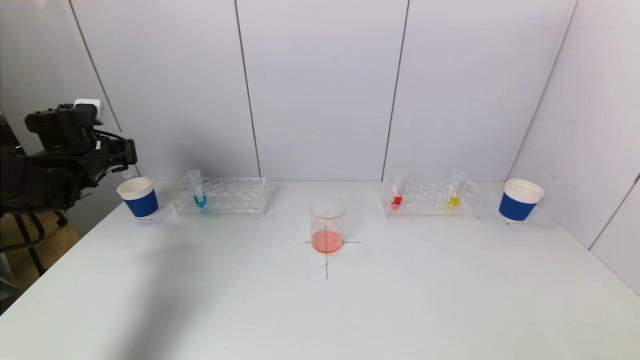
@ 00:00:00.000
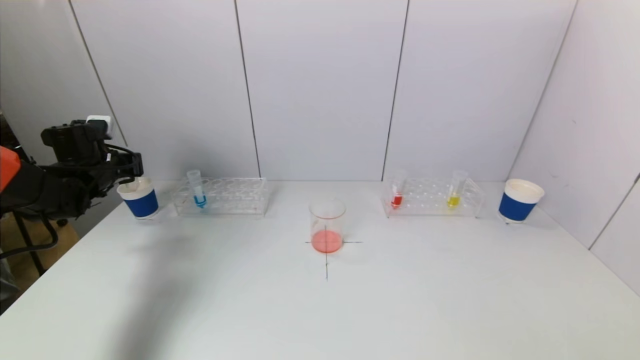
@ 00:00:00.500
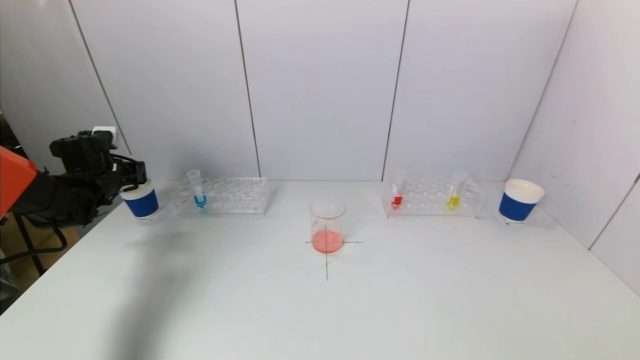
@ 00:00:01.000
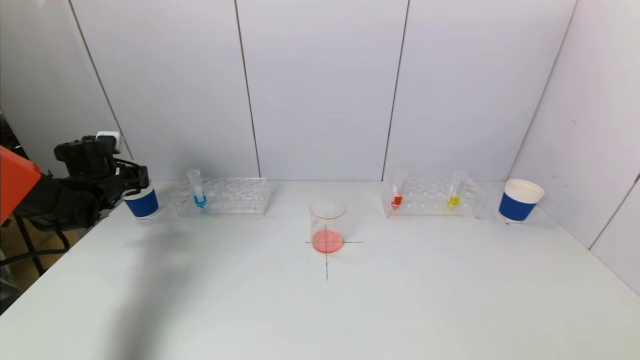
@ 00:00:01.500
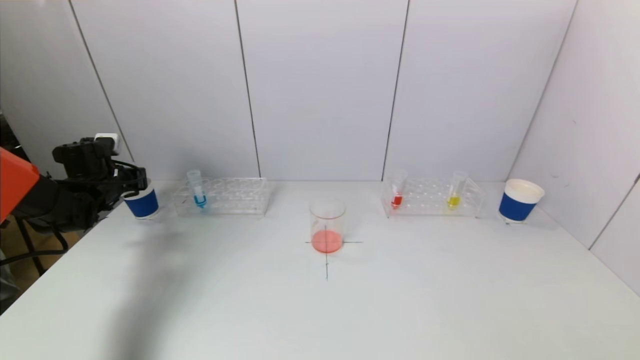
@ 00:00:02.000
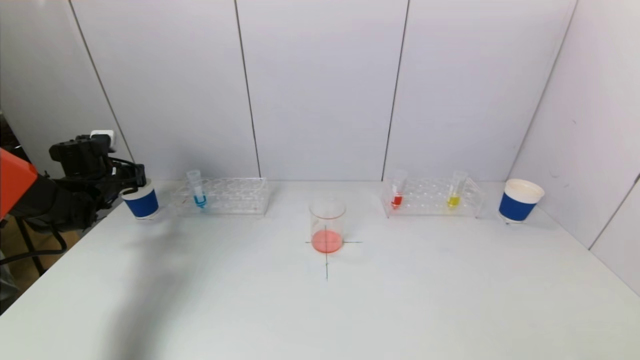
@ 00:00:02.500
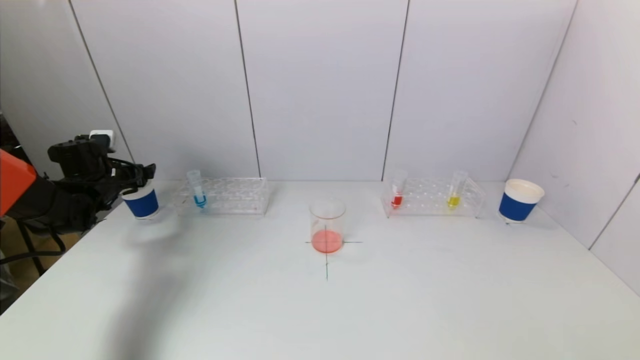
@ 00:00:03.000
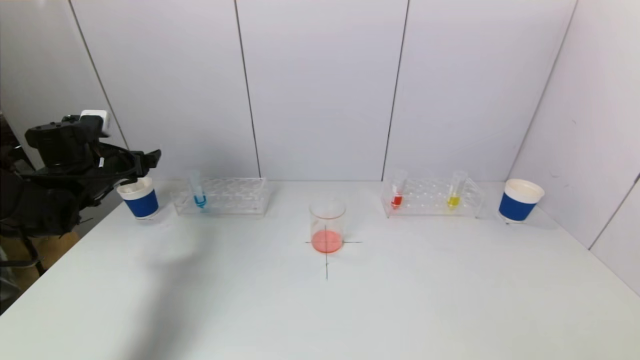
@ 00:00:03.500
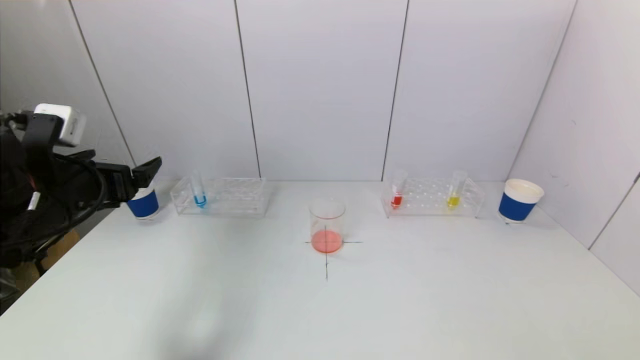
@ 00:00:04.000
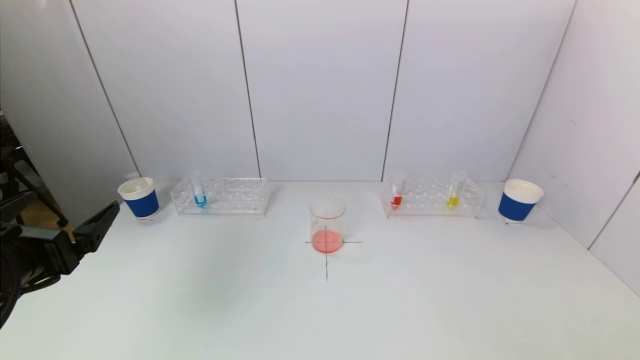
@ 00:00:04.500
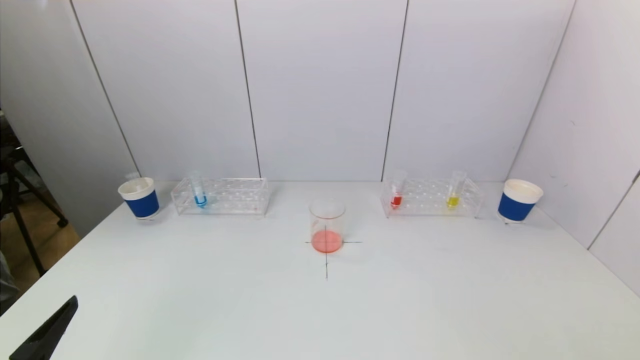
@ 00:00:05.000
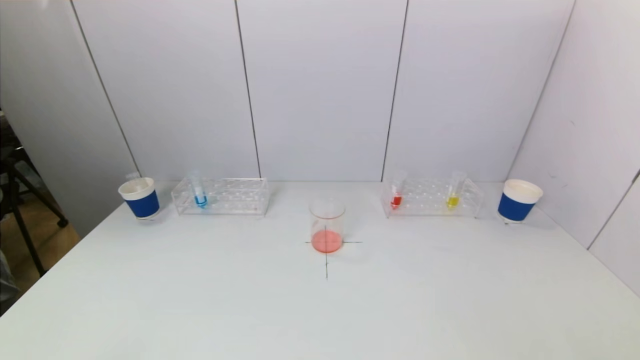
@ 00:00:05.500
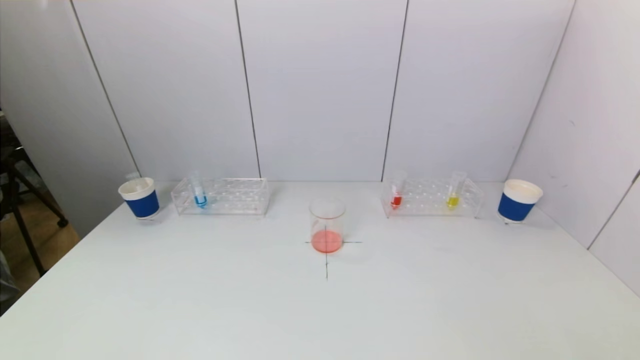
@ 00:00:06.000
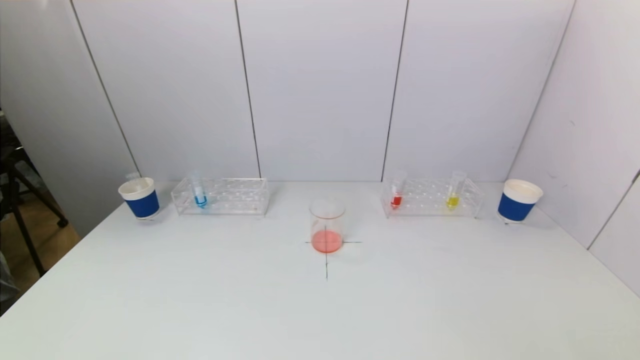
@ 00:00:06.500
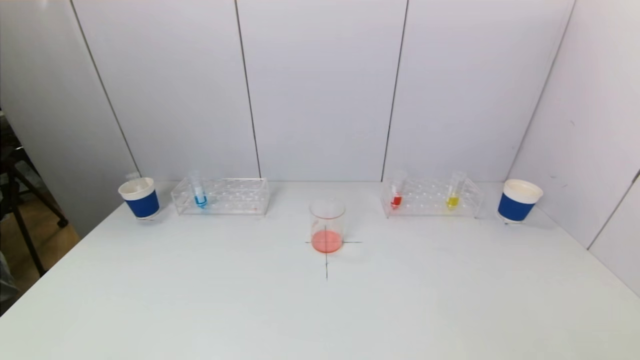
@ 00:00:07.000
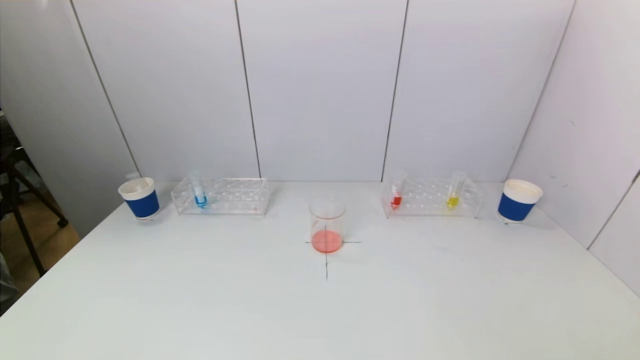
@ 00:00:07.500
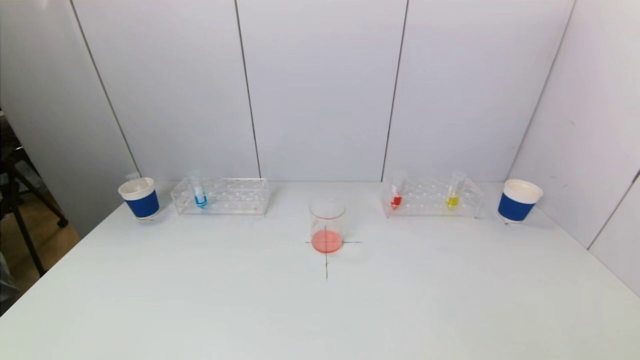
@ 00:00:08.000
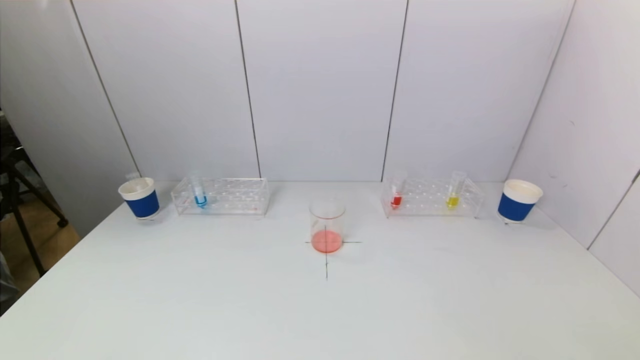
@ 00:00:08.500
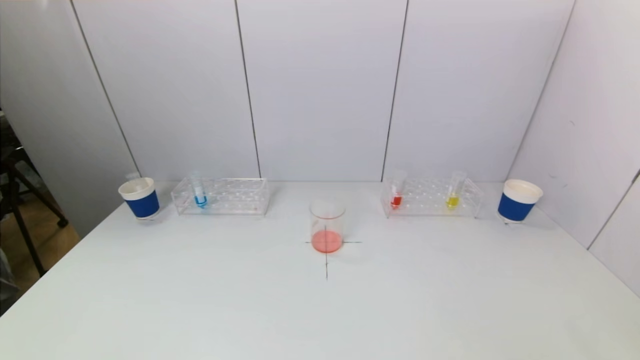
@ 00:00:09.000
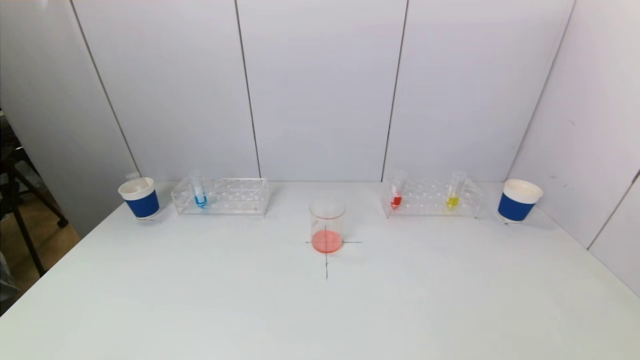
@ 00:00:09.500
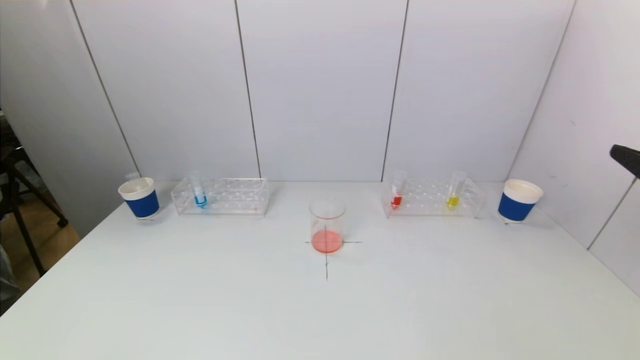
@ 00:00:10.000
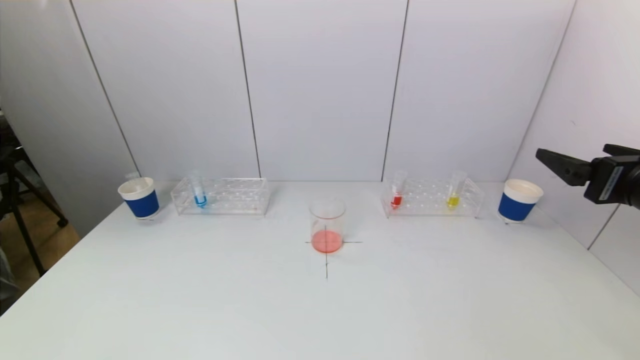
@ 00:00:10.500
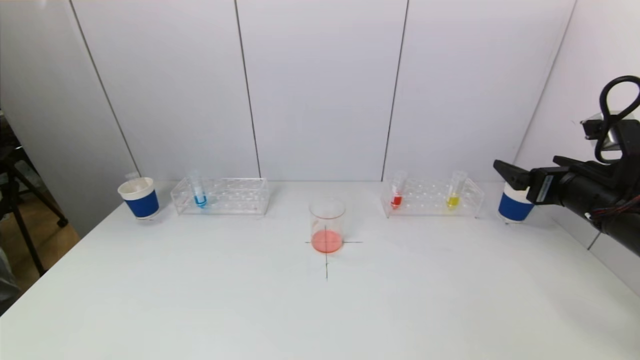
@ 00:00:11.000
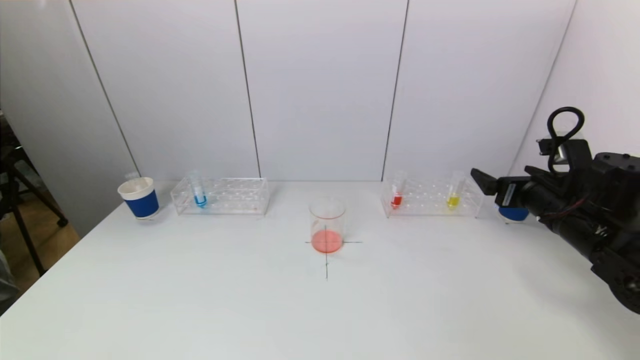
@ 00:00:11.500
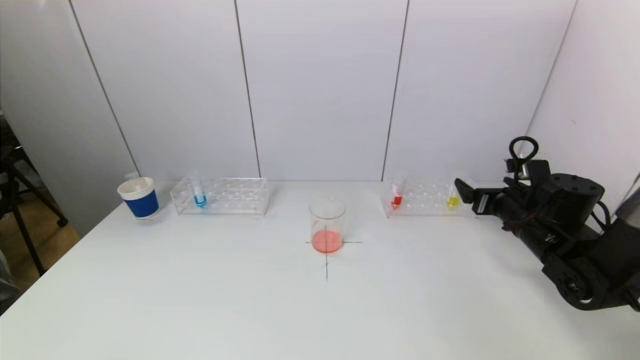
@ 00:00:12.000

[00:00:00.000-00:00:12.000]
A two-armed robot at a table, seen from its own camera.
Task of the whole recording: pick up a test tube with pigment on left test tube rack and a test tube with pigment on right test tube rack by grippers and pour them into the beaker.
Step, 00:00:00.000 to 00:00:03.000: Place the test tube into the paper cup with the left gripper.
00:00:00.000 to 00:00:02.000: The left gripper heads downward, covering approximately 5 cm.
00:00:02.000 to 00:00:04.000: The left gripper moves backward, to the right and upward, approximately 25 cm, and opens up.
00:00:04.000 to 00:00:06.000: The left gripper is displaced backward and downward by roughly 30 cm.
00:00:10.000 to 00:00:12.000: The right gripper travels forward and downward by roughly 25 cm.

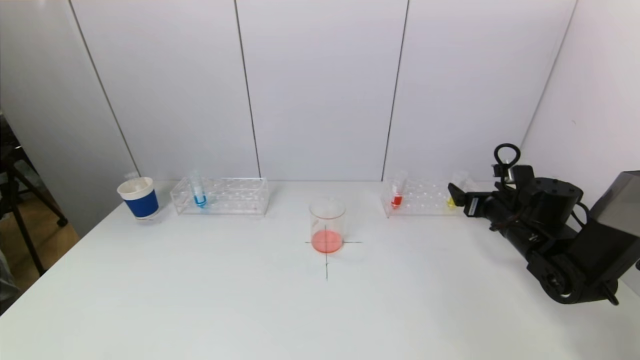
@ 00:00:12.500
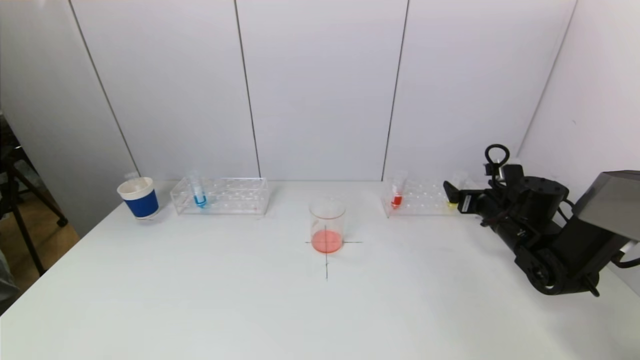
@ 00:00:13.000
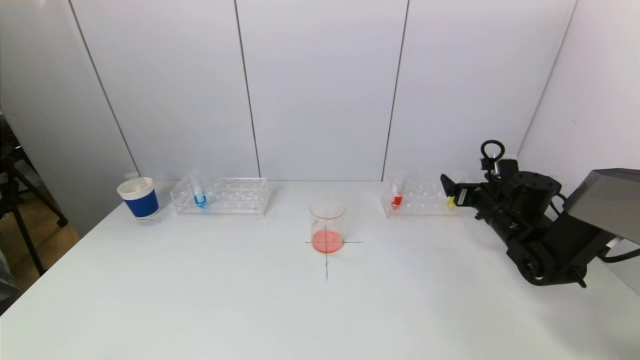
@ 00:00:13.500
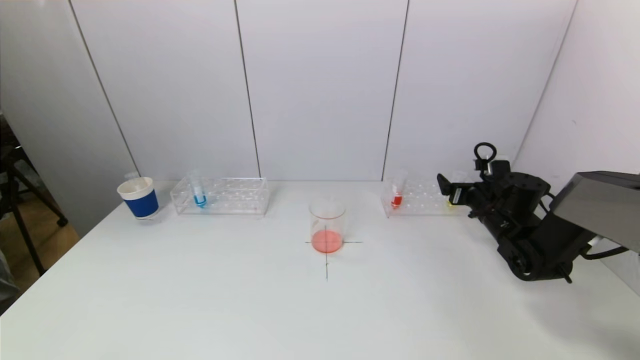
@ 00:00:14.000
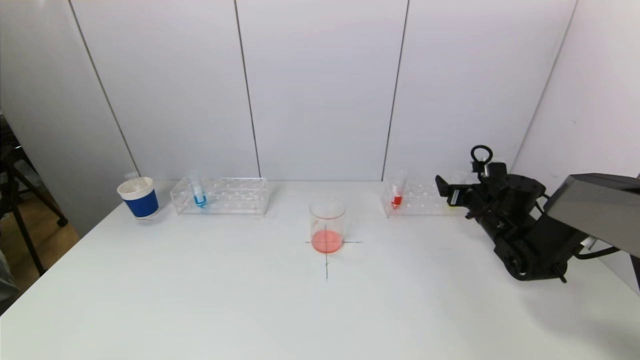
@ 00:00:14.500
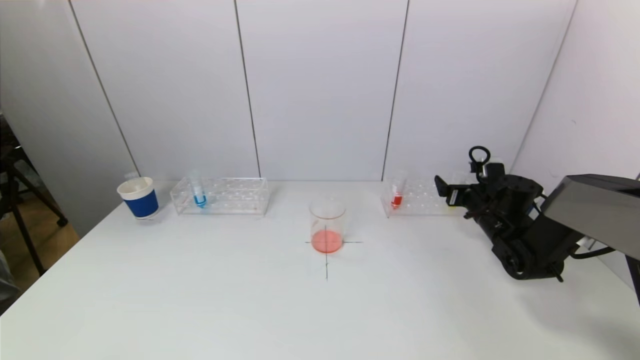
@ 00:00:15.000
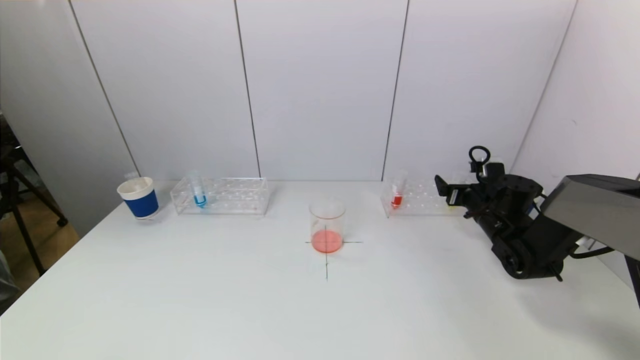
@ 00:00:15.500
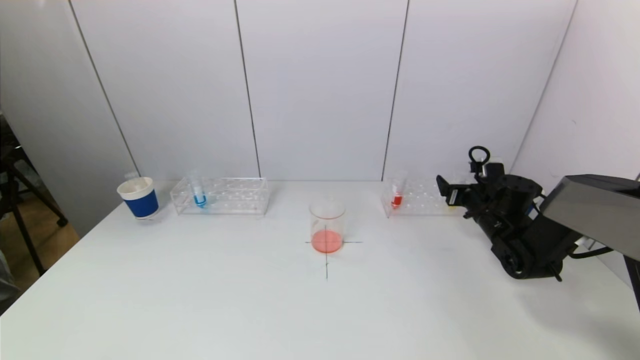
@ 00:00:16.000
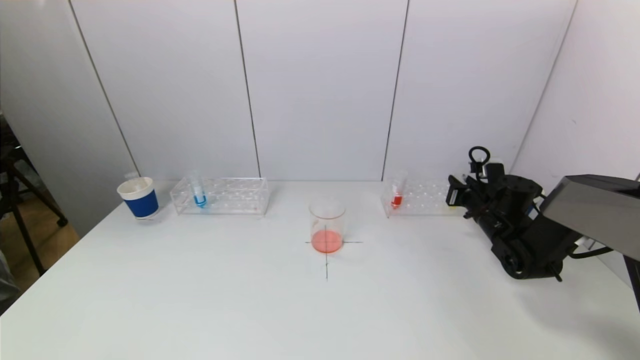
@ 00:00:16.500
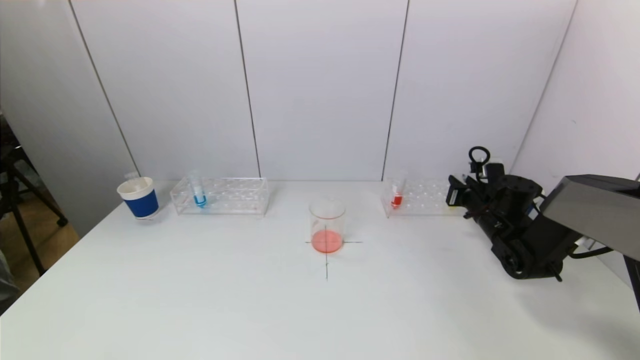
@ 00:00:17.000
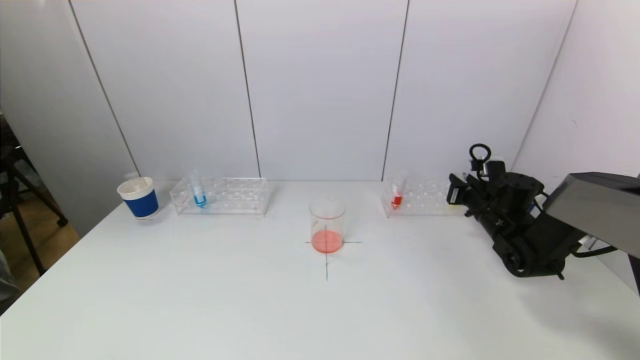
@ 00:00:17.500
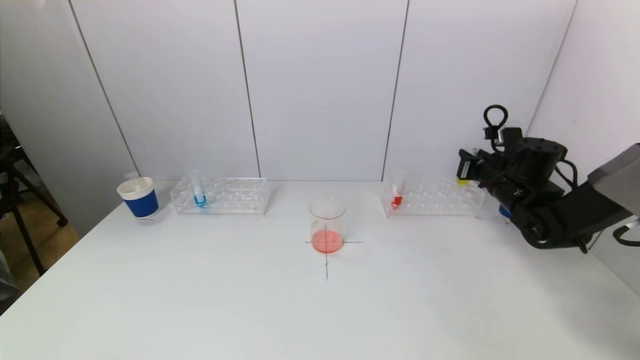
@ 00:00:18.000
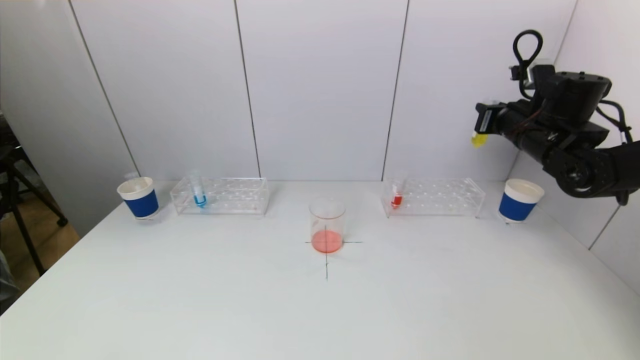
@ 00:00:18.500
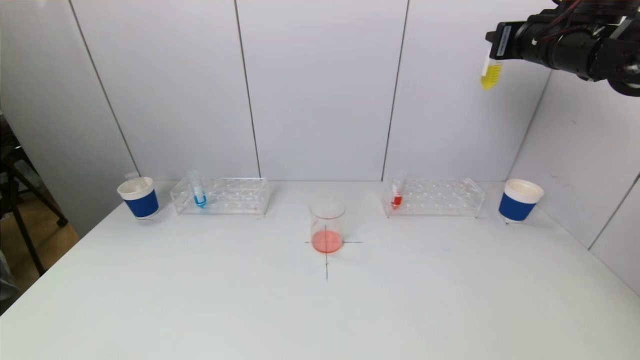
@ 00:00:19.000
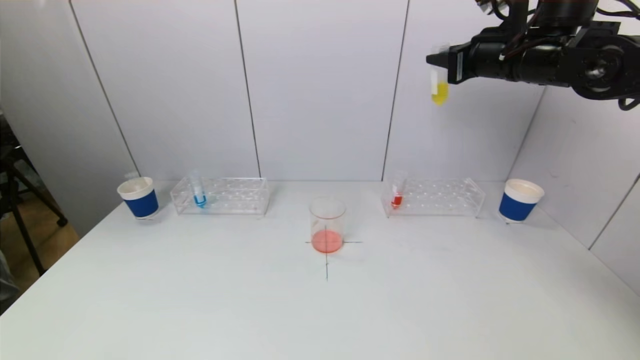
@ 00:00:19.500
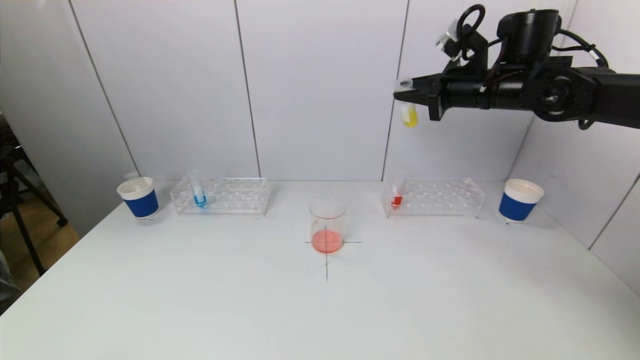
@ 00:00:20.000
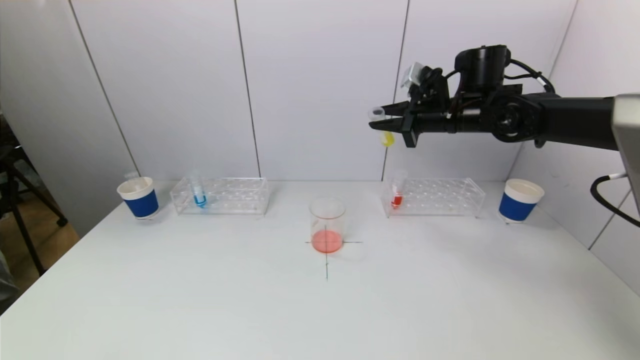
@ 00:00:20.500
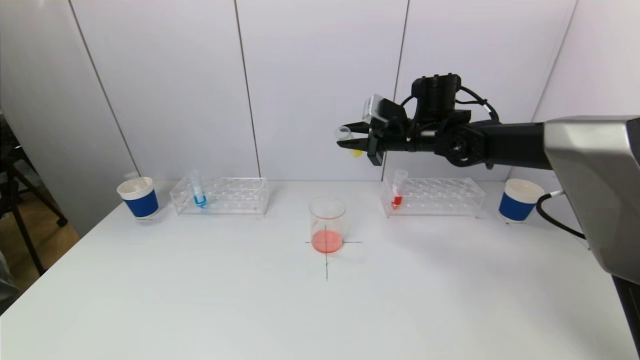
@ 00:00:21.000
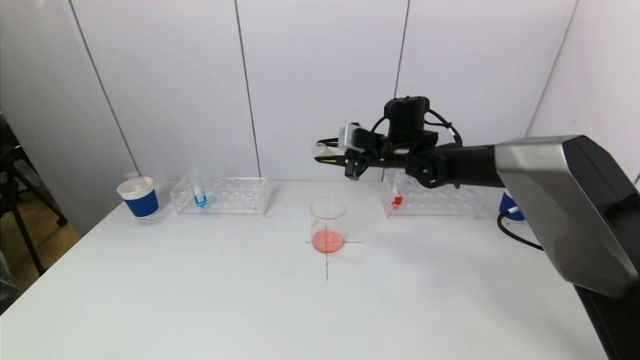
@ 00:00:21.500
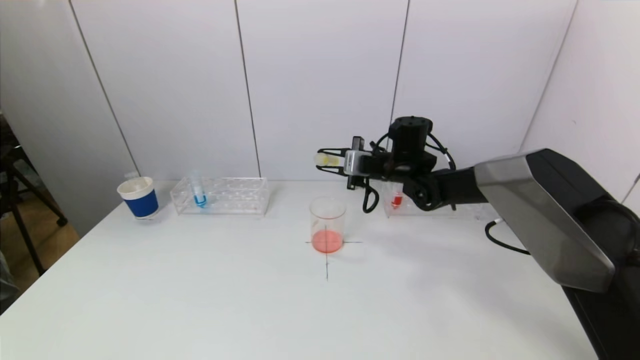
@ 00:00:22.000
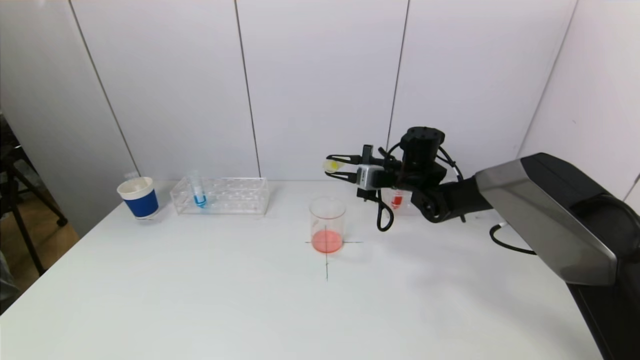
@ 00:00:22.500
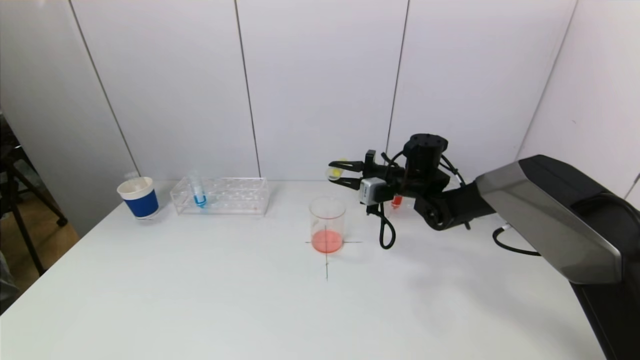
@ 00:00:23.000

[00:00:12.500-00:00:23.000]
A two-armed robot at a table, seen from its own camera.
Task of the whole recording: pick up a test tube with pigment on left test tube rack and a test tube with pigment on right test tube rack by grippers and pour them into the beaker.
Step, 00:00:12.500 to 00:00:16.500: Grasp the yellow reagent with the right gripper.
00:00:12.500 to 00:00:14.500: The right gripper moves forward, approximately 5 cm.
00:00:14.500 to 00:00:16.500: The right gripper closes.
00:00:16.500 to 00:00:19.000: The right gripper moves upward, approximately 30 cm.
00:00:19.000 to 00:00:21.000: The right gripper goes approximately 20 cm downward, to the left and forward.
00:00:21.000 to 00:00:23.000: The right gripper shifts roughly 10 cm downward.
